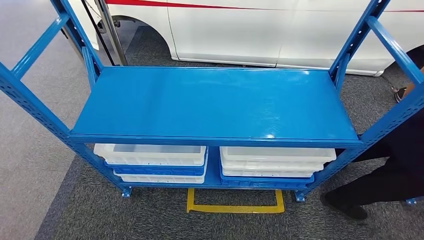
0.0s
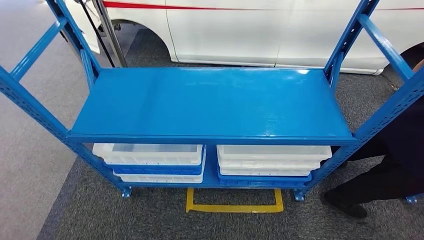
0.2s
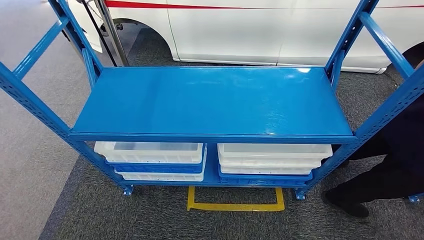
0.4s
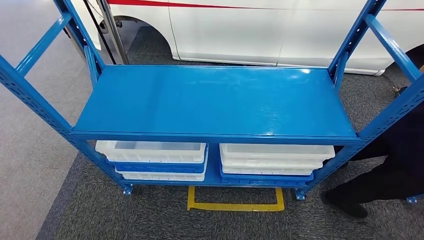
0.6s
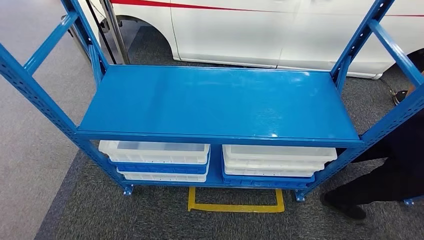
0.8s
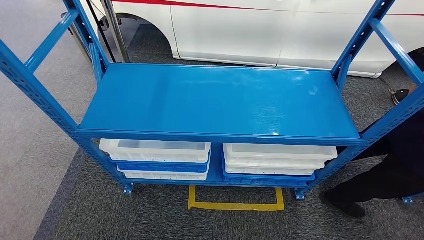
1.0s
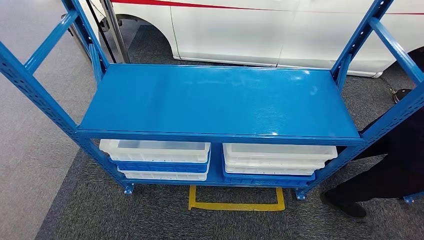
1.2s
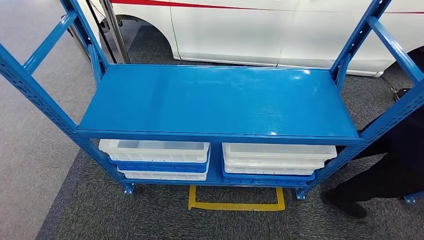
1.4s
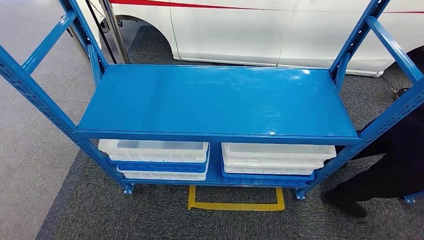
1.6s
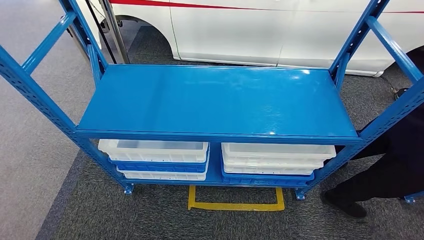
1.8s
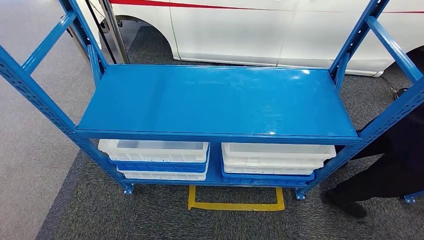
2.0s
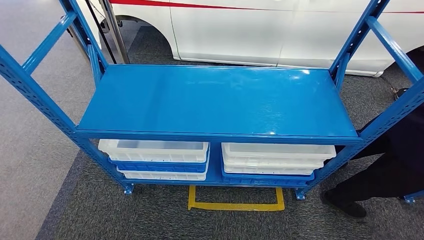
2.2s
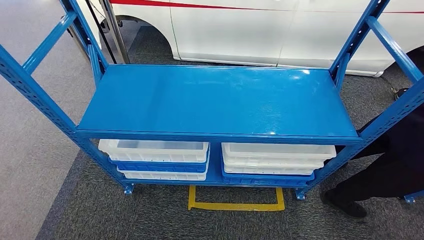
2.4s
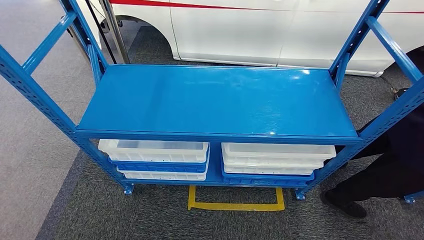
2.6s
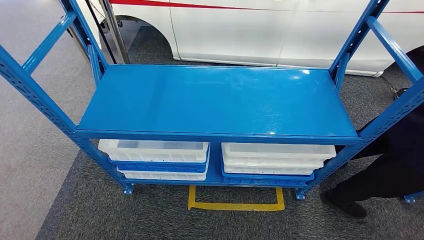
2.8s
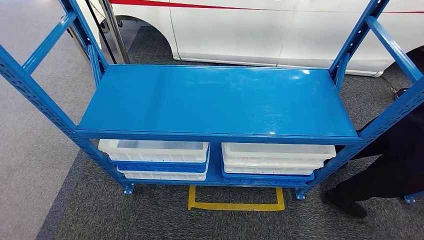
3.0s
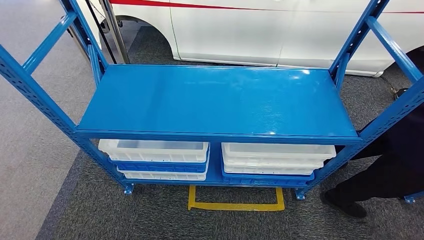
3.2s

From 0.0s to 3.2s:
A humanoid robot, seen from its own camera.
From 0.0s to 1.6s: The hands make only small movements.
